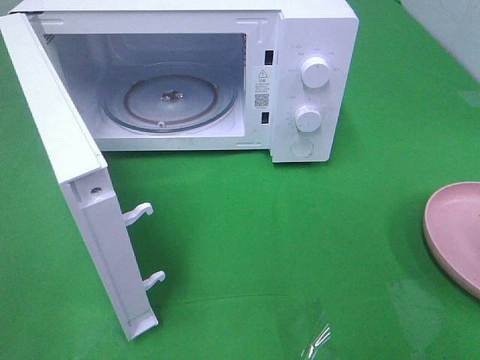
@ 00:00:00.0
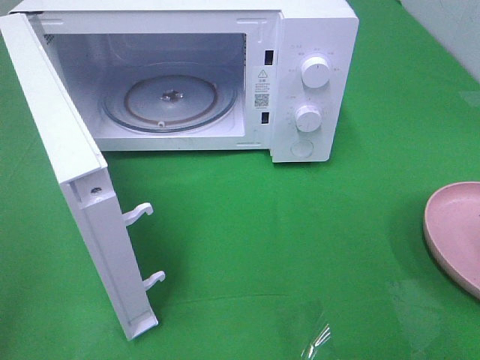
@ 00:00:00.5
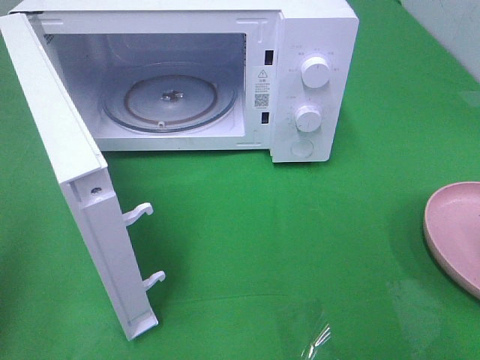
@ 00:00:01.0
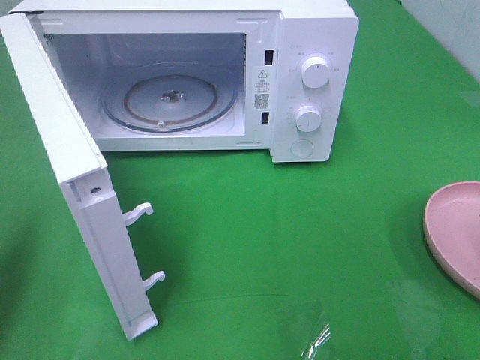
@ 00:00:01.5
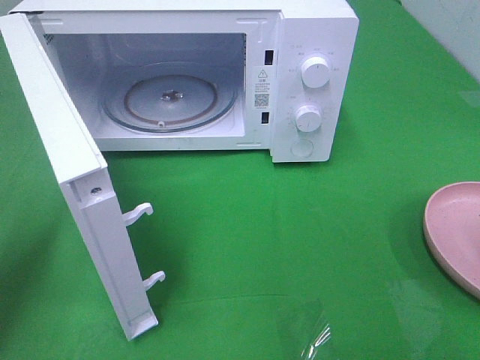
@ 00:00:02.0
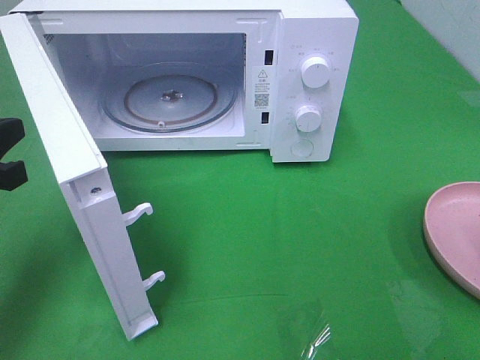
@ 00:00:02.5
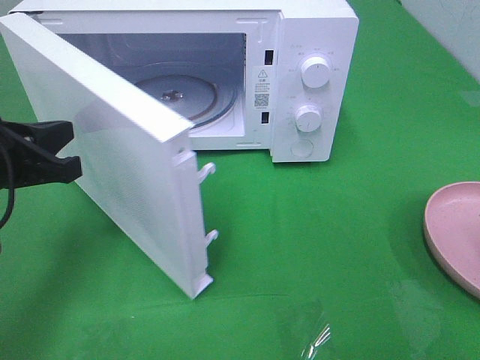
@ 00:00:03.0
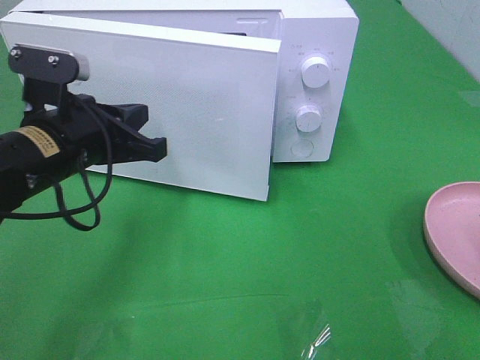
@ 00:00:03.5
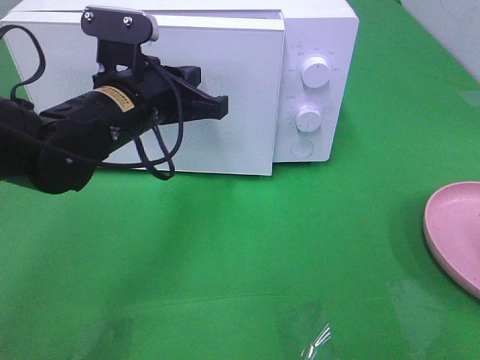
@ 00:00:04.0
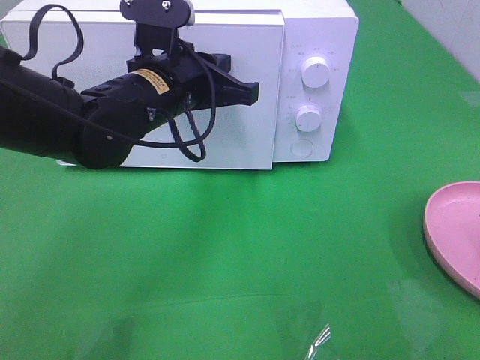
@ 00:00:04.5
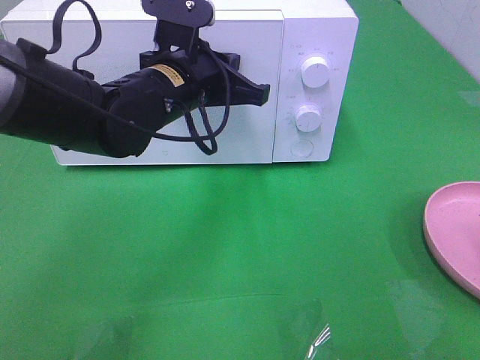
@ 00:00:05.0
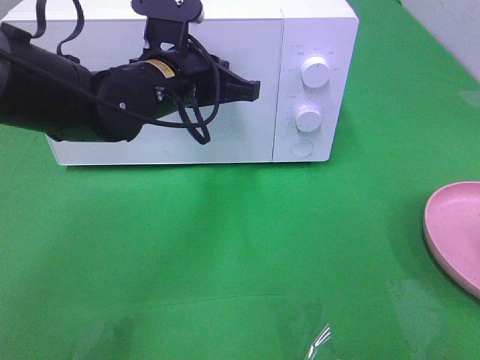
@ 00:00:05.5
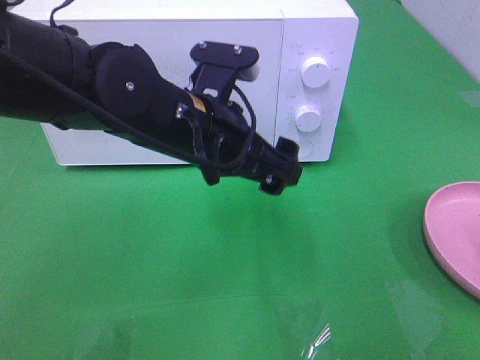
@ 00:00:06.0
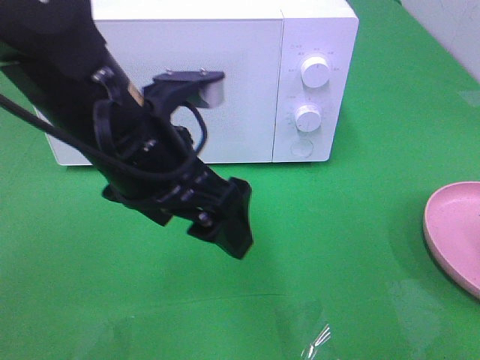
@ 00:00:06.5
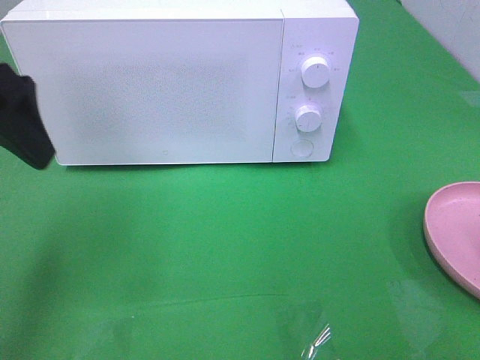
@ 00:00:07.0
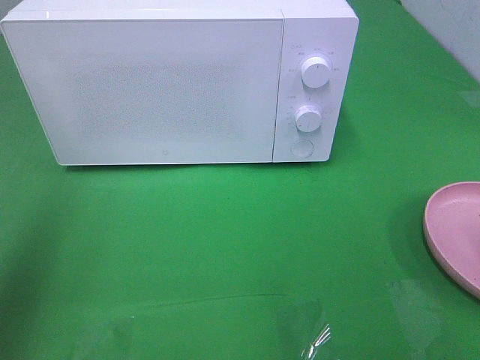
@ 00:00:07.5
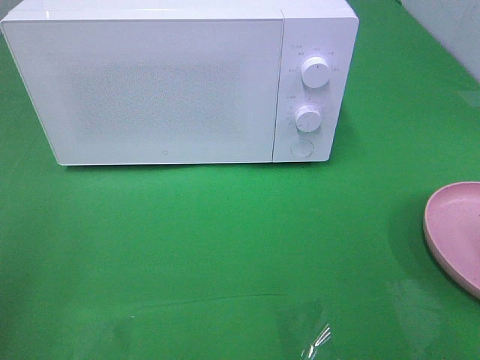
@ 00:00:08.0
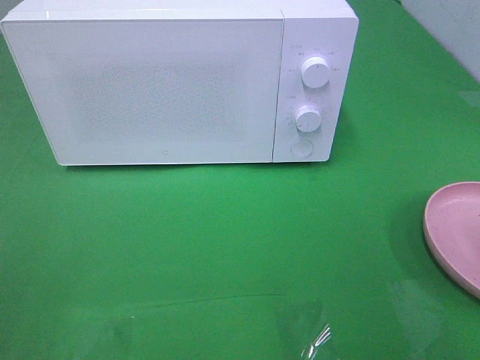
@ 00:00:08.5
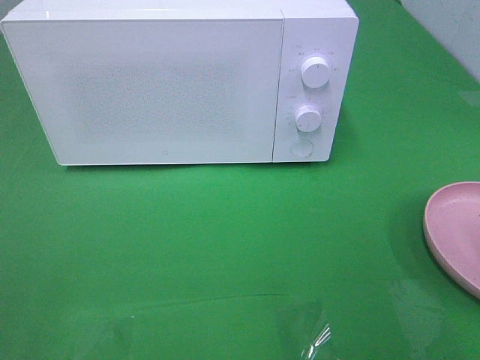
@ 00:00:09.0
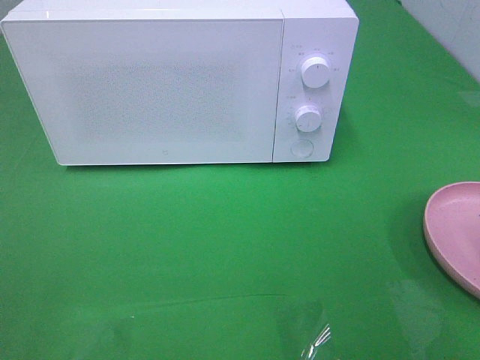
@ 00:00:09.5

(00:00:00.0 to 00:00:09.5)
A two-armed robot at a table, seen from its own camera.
Task of the whole recording: Heat the burger.
Step, 00:00:00.0 - 00:00:06.0: Left hand: close the microwave door.
00:00:00.0 - 00:00:02.0: The left gripper is displaced forward and downward by approximately 20 cm, and closes up.
00:00:02.0 - 00:00:04.0: The left gripper is displaced to the right and forward by some 25 cm.
00:00:04.0 - 00:00:05.5: The grippers move only a little.
00:00:05.5 - 00:00:07.5: The left gripper moves to the left, upward and backward, about 35 cm, and opens its fingers.
00:00:07.5 - 00:00:09.5: The left gripper is displaced backward and downward by about 20 cm.
